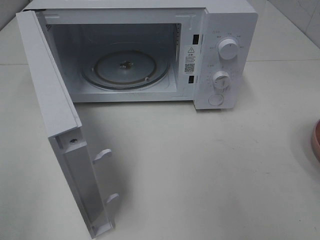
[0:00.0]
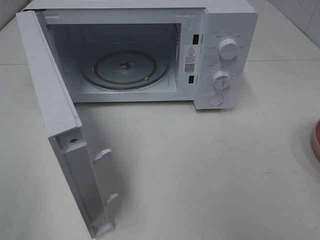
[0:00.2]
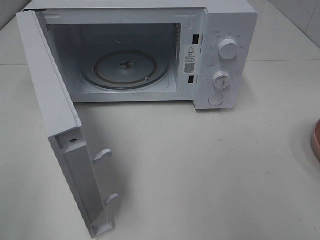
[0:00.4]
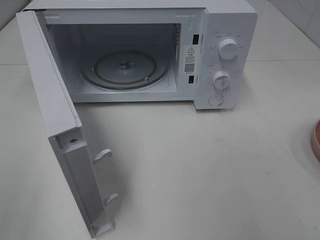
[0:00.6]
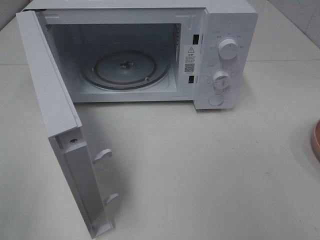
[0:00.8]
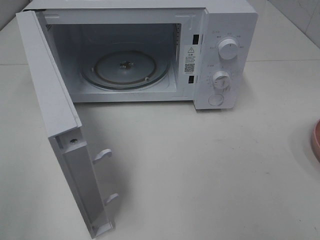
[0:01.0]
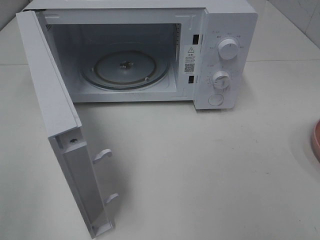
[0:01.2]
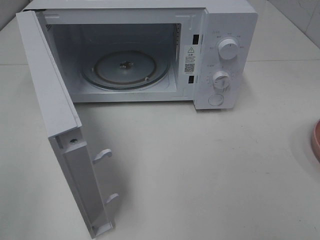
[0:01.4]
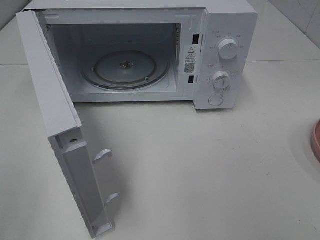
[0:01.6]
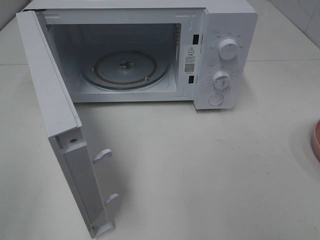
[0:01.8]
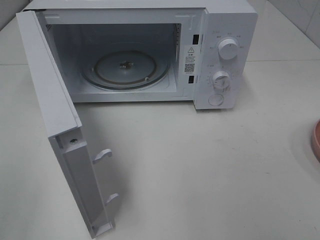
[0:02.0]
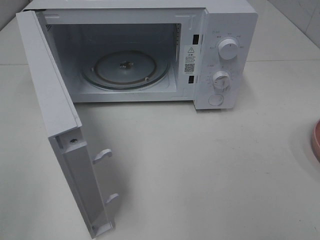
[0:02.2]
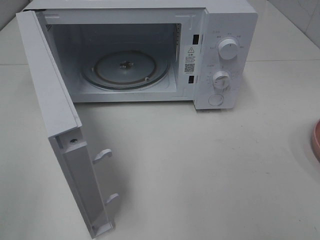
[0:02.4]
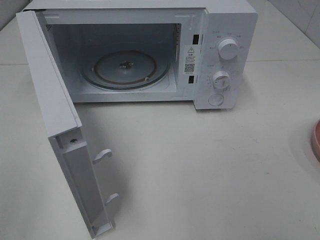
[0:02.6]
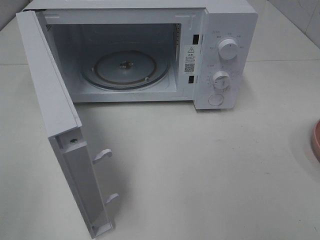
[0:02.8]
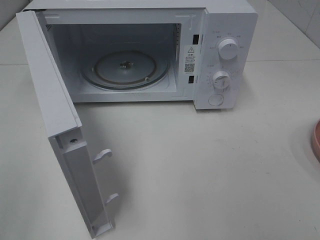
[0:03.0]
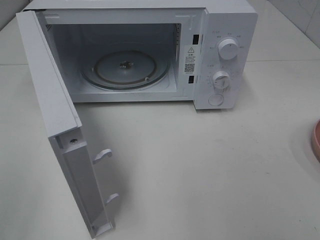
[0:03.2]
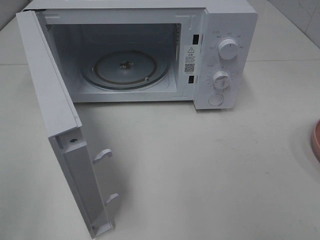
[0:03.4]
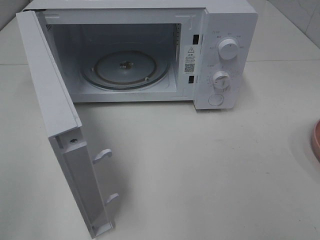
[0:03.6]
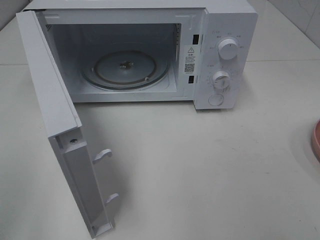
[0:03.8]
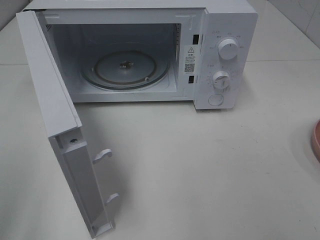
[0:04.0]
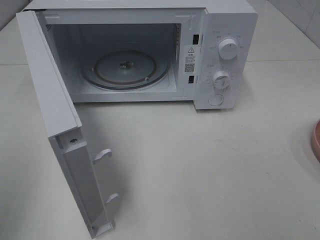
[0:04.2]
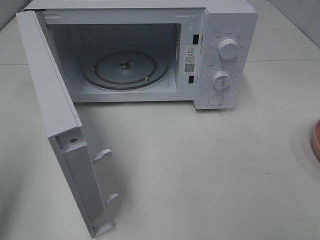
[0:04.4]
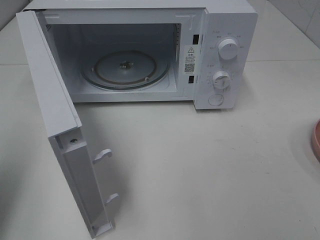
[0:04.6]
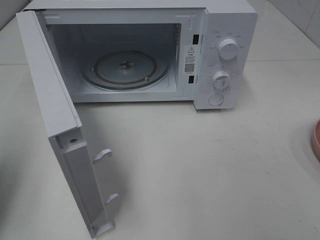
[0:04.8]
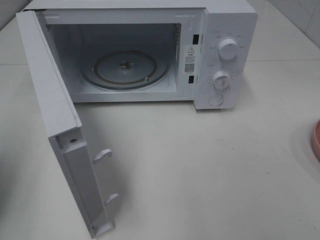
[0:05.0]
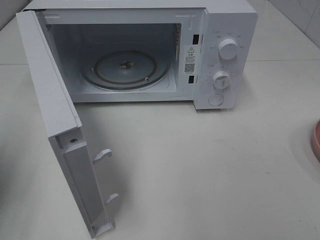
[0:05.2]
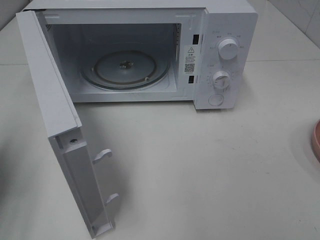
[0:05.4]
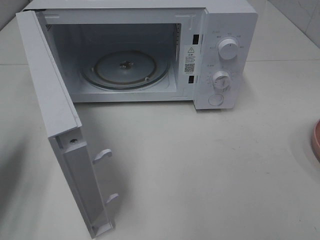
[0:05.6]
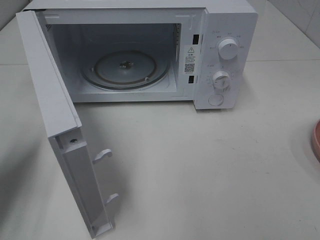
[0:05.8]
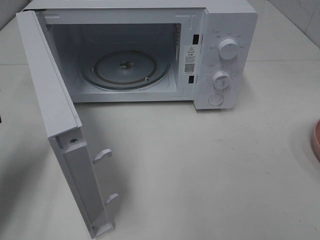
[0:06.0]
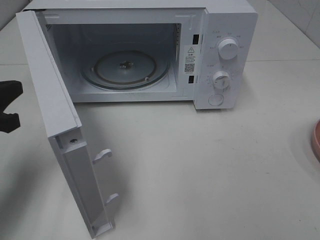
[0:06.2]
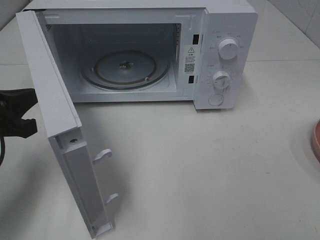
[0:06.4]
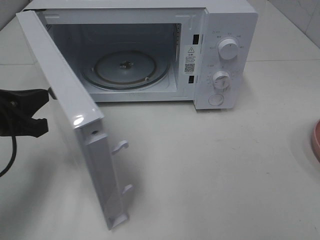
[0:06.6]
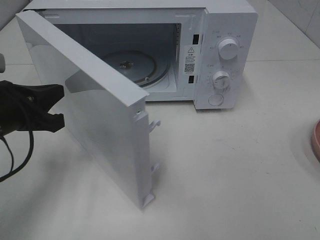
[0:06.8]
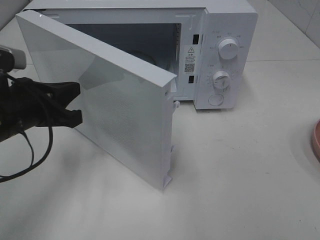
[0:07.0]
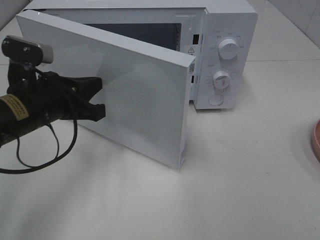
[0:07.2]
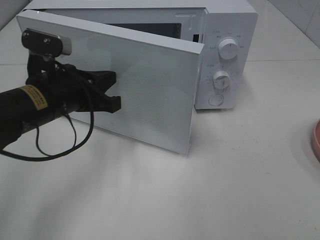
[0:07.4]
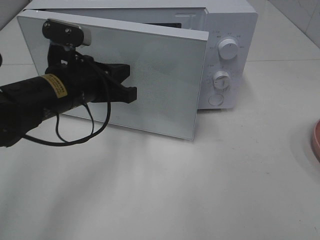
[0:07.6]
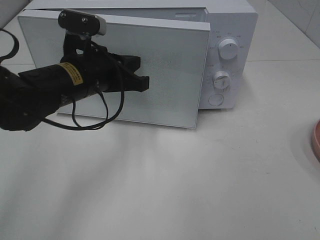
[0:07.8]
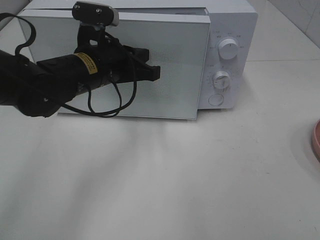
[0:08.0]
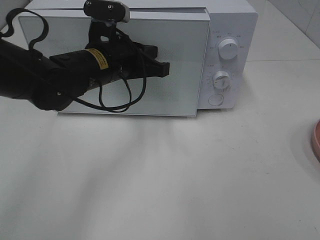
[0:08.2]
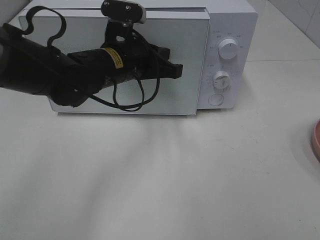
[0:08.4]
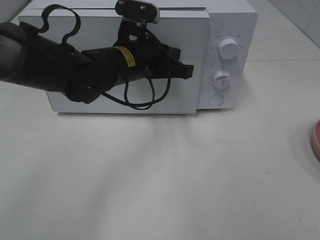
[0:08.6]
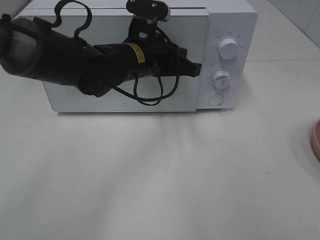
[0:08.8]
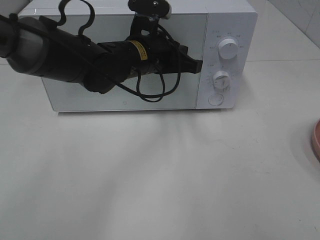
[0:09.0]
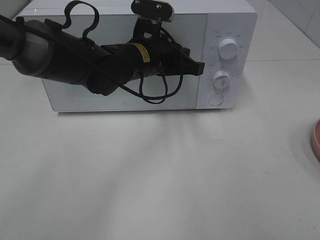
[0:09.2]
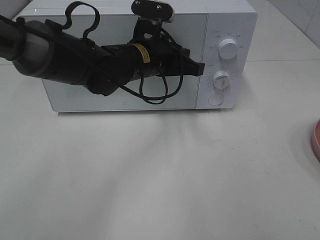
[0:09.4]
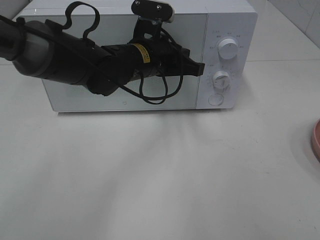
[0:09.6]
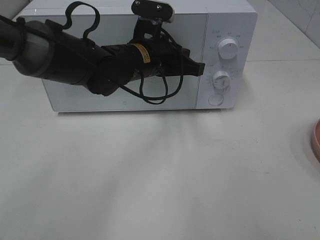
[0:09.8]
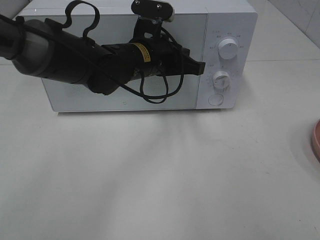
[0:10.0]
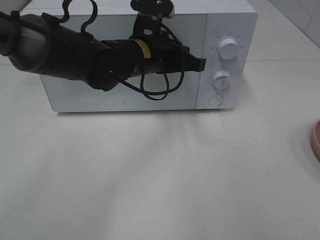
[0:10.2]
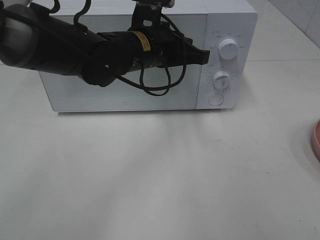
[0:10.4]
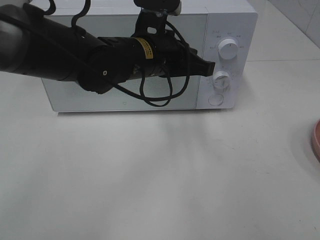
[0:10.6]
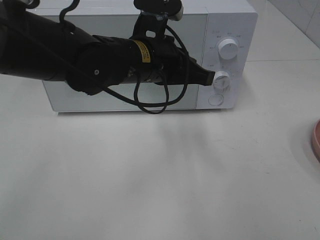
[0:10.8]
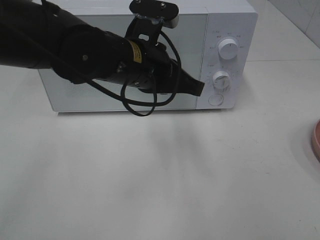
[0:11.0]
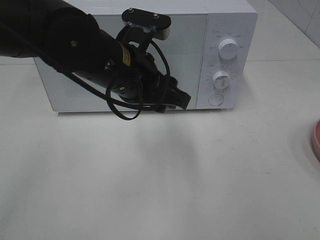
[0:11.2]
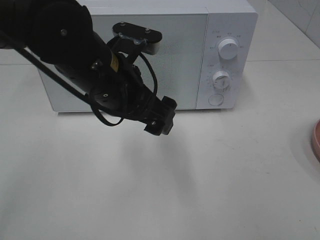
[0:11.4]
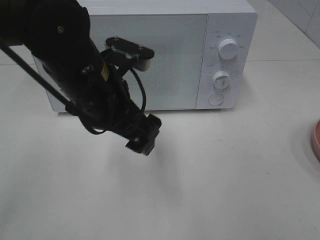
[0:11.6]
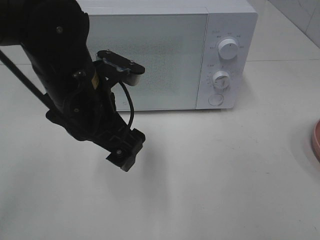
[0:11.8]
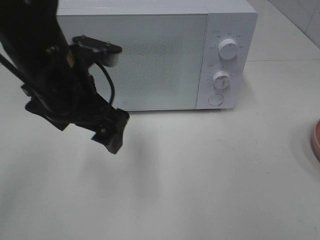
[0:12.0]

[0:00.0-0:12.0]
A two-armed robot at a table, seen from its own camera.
Task of the whole recording: Heat Sandwich.
Step, 0:00.0 to 0:10.4: Left hand: close the microwave door.
0:01.6 to 0:03.0: Both grippers stay put.
0:03.0 to 0:04.4: The left gripper shifts approximately 10 cm forward, and closes up.
0:04.4 to 0:06.0: The left gripper is displaced forward and downward by approximately 15 cm.
0:06.0 to 0:07.6: The left gripper moves to the right, some 20 cm.
0:07.6 to 0:09.0: The left gripper goes roughly 15 cm to the right and forward.
0:09.0 to 0:10.4: The grippers make only small movements.
0:10.4 to 0:12.0: The left gripper shifts approximately 15 cm to the left and backward, and opens.

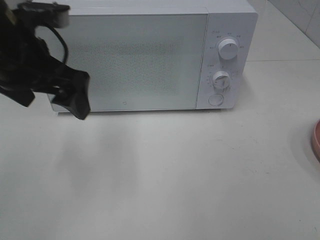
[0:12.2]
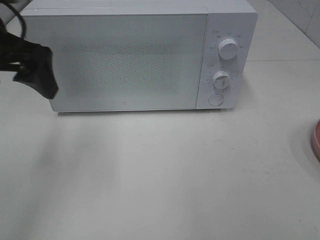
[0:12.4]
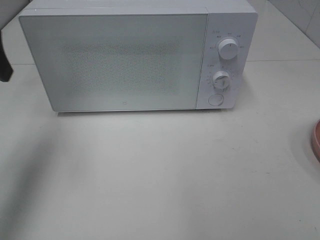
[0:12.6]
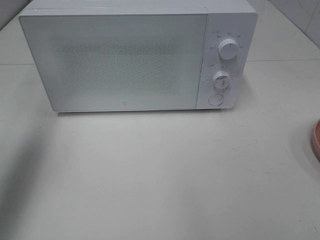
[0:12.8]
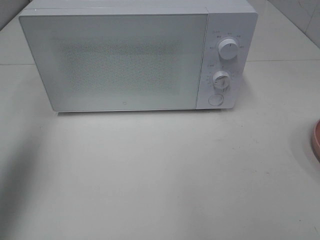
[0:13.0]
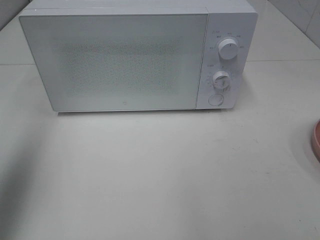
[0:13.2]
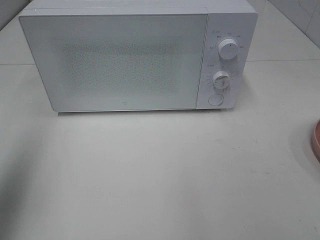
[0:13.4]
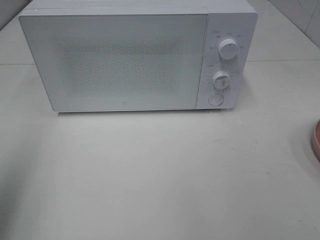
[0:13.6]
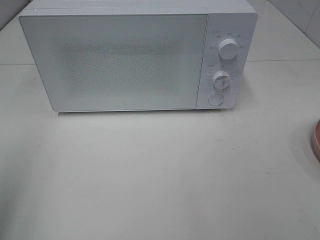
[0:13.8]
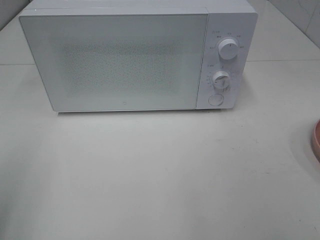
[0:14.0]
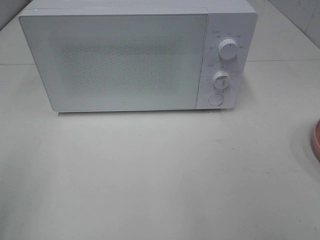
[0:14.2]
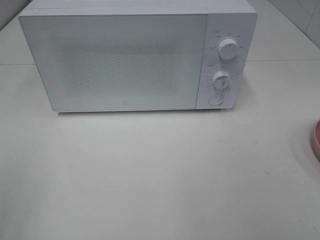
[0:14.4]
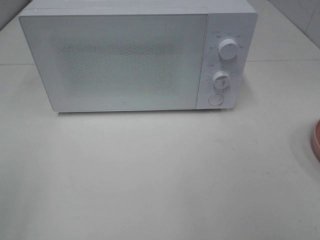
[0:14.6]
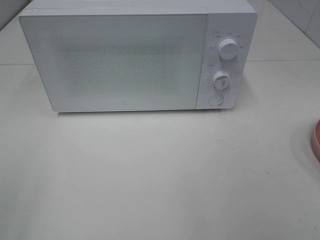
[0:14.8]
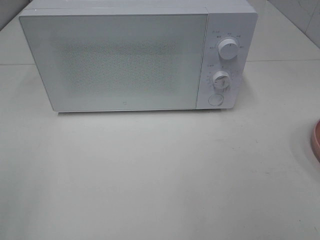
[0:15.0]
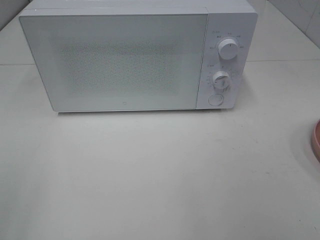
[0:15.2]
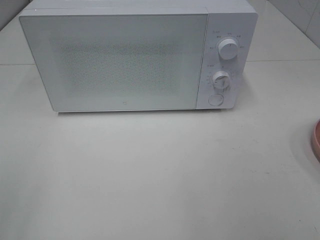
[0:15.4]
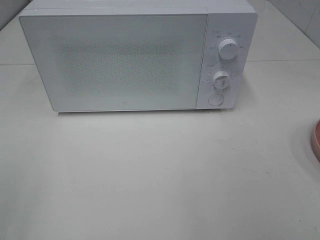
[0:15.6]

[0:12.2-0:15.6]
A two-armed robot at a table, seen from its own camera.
Task of the whole recording: Heat Sandwich.
0:12.2 to 0:13.8: The left gripper shifts some 25 cm backward and to the left.

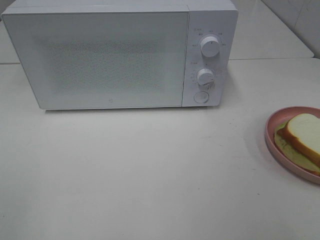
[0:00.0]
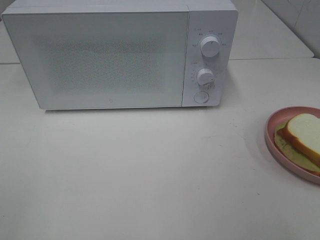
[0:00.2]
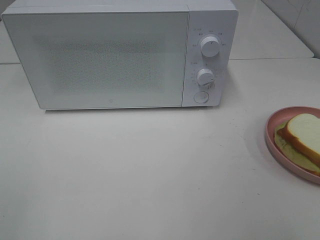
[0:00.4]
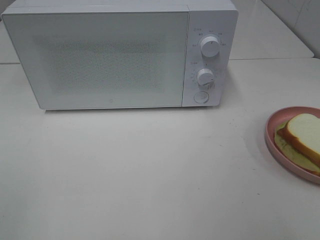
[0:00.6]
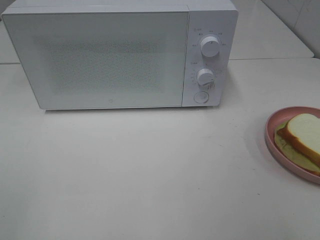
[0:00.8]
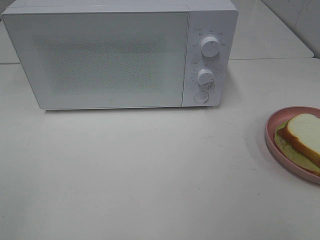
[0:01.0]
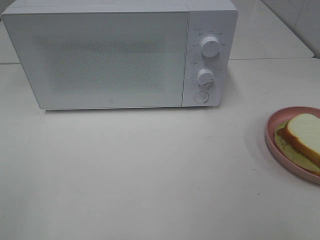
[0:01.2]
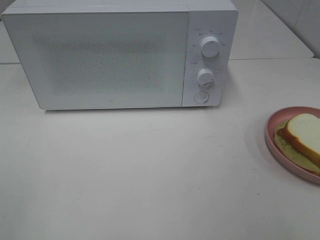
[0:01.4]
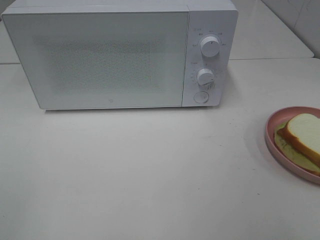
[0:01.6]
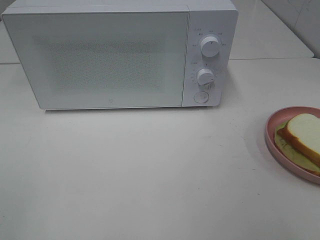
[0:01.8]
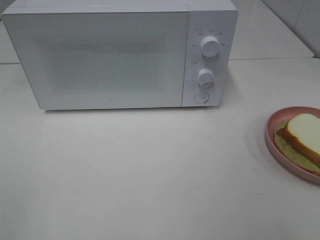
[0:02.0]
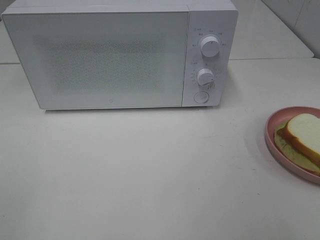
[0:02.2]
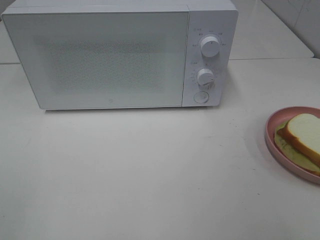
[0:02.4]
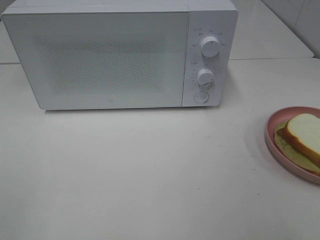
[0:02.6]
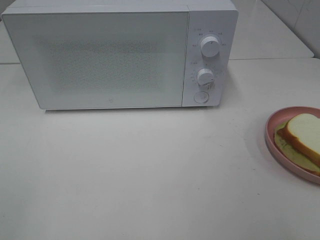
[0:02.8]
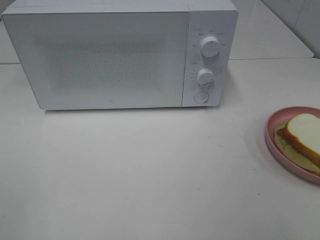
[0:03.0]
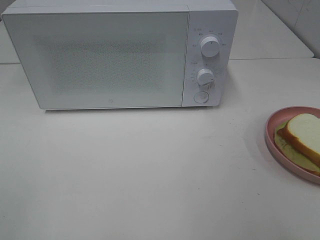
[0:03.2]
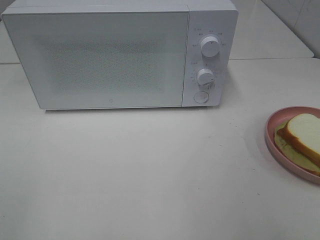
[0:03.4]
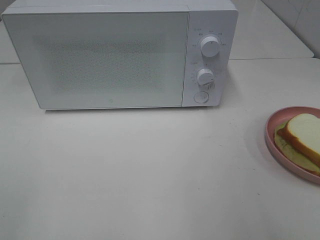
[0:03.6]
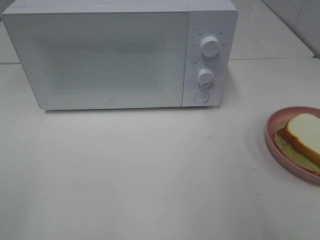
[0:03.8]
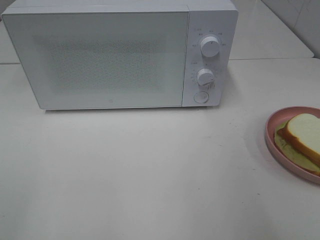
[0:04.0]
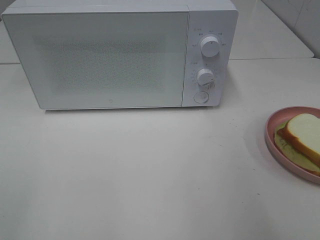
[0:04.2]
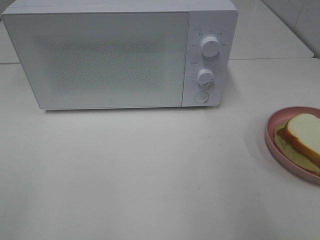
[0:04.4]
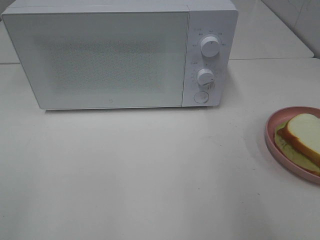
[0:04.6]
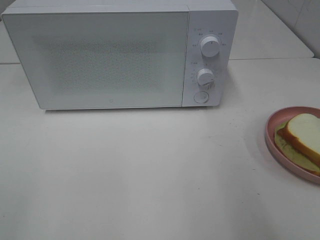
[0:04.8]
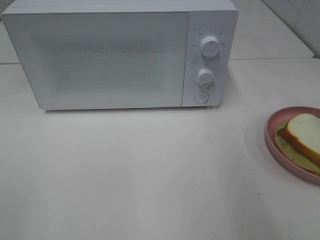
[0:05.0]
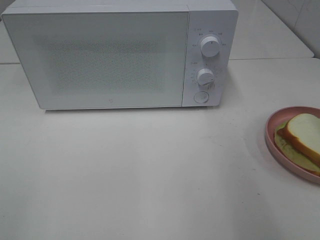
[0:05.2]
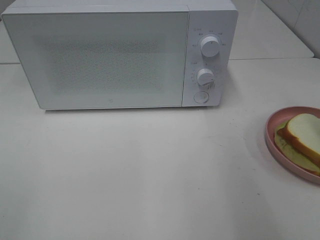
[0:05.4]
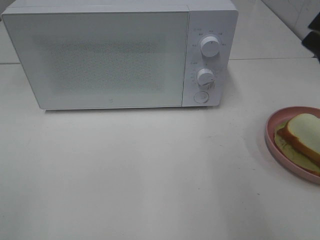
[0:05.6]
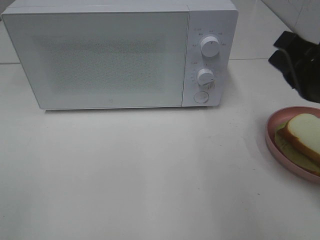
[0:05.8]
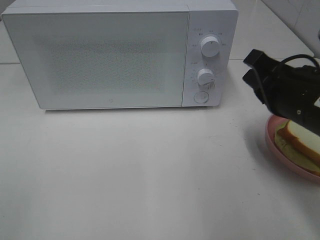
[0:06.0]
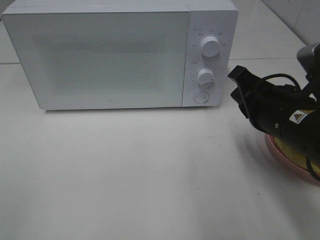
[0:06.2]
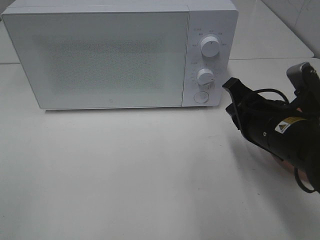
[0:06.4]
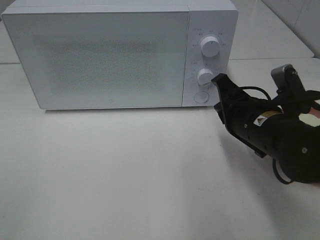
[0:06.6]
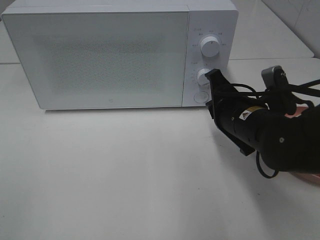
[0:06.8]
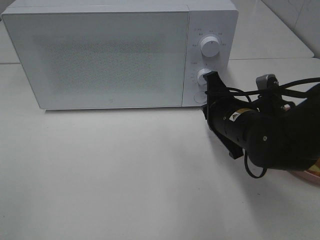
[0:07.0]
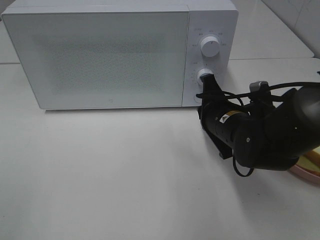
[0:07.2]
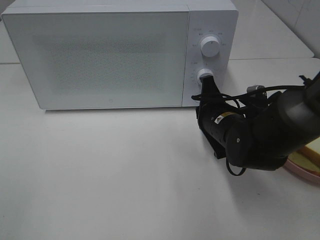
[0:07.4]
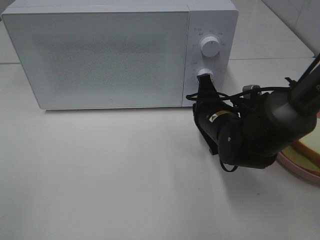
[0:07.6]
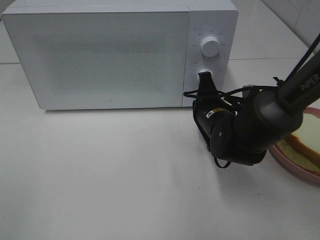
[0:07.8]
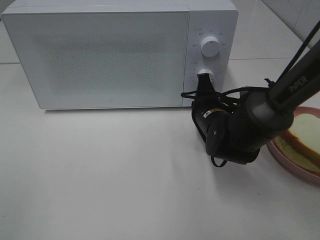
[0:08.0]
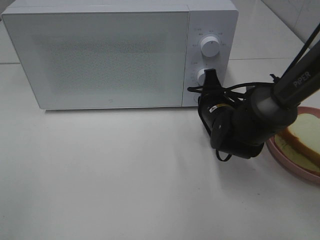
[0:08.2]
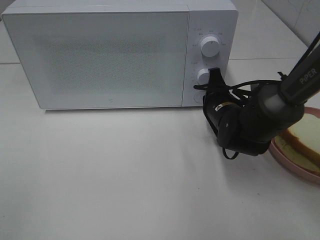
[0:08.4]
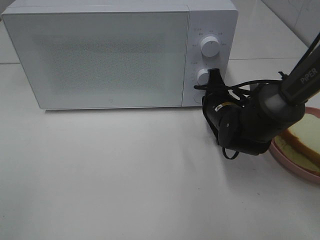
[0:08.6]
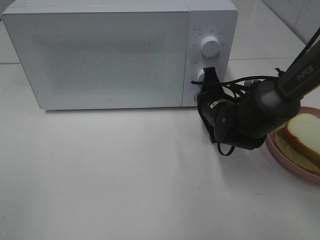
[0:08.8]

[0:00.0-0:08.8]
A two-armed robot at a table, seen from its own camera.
Task of the whole recording: Heat Sandwich.
0:00.0 to 0:03.0: Both grippers stay put.
0:04.4 to 0:05.8: The right gripper is displaced forward, downward and to the left by about 15 cm.
0:05.8 to 0:07.4: The right gripper goes roughly 20 cm downward, to the left and forward.
0:07.4 to 0:08.8: The right gripper goes approximately 5 cm forward.